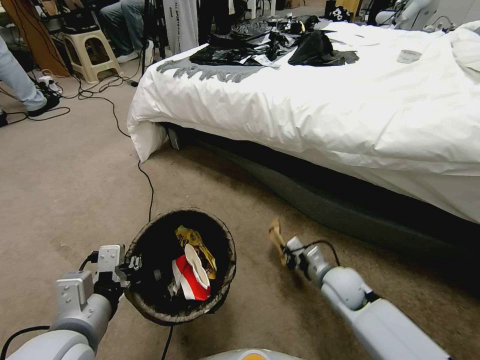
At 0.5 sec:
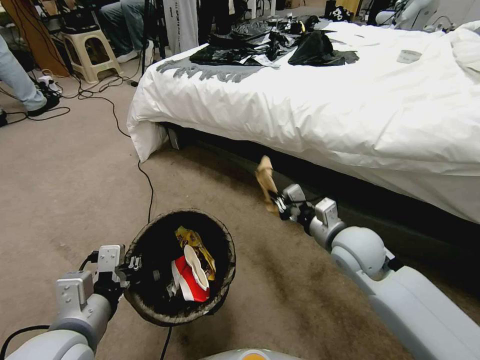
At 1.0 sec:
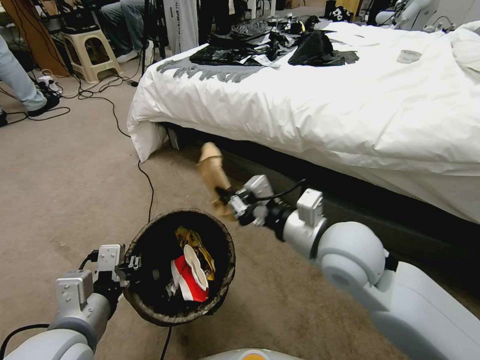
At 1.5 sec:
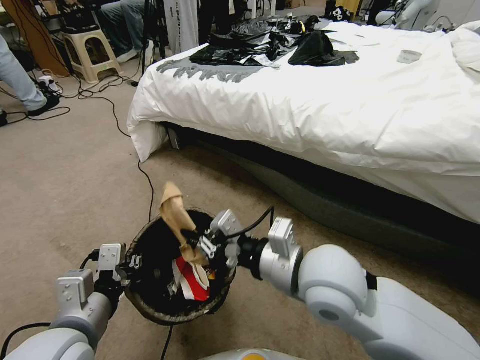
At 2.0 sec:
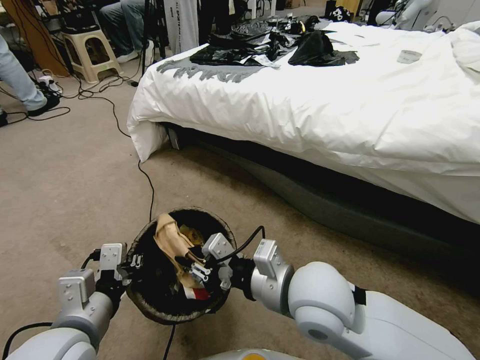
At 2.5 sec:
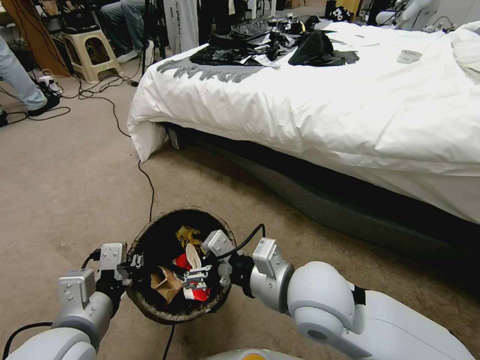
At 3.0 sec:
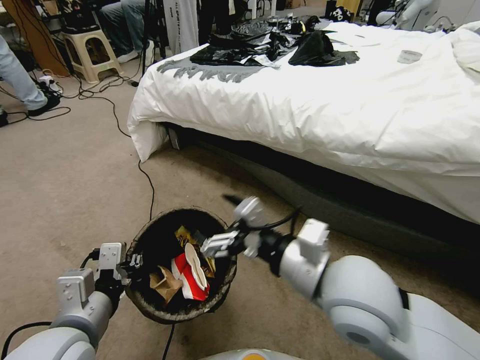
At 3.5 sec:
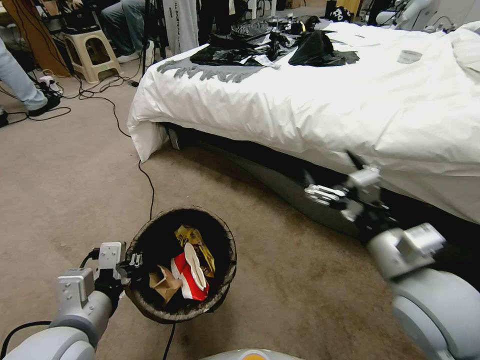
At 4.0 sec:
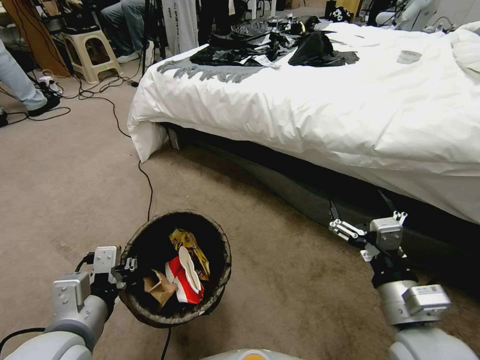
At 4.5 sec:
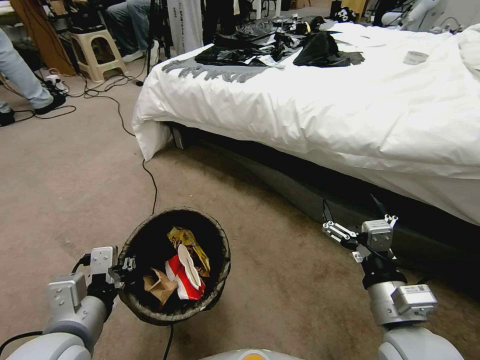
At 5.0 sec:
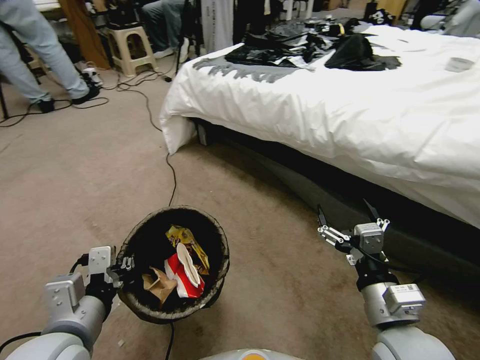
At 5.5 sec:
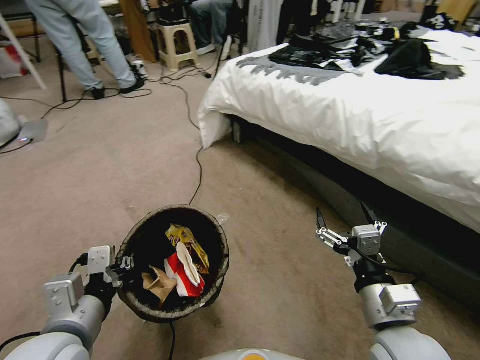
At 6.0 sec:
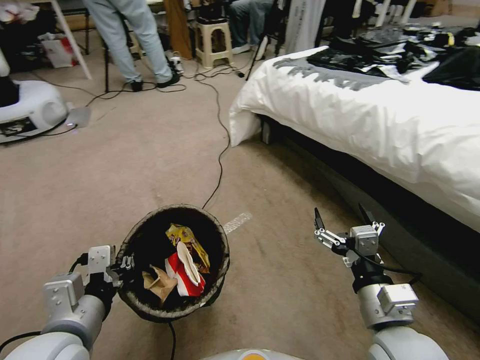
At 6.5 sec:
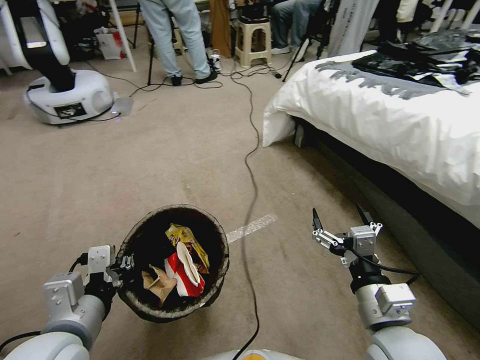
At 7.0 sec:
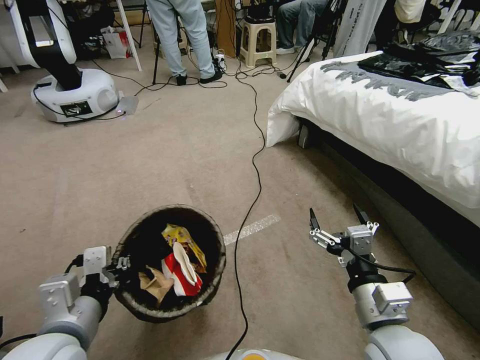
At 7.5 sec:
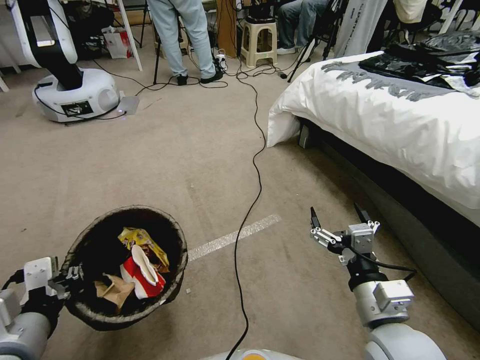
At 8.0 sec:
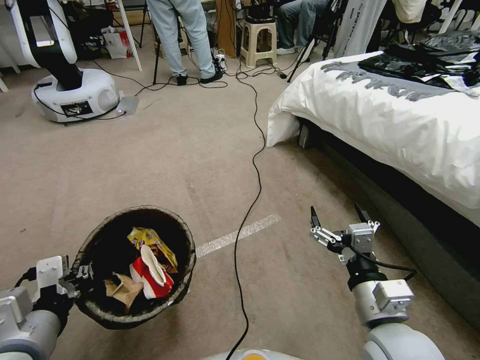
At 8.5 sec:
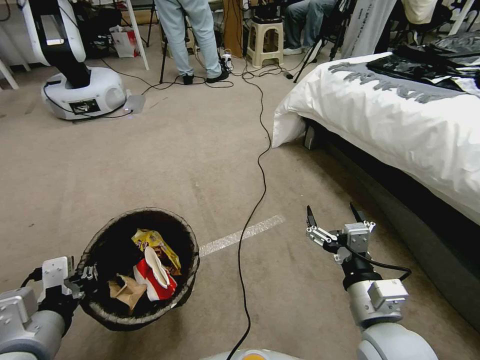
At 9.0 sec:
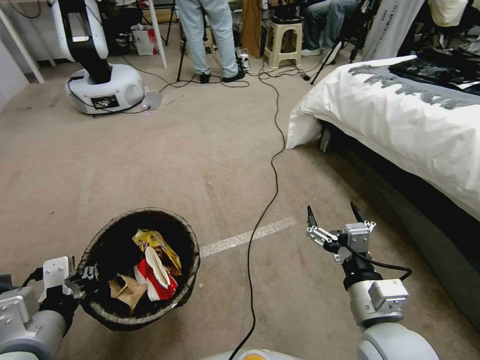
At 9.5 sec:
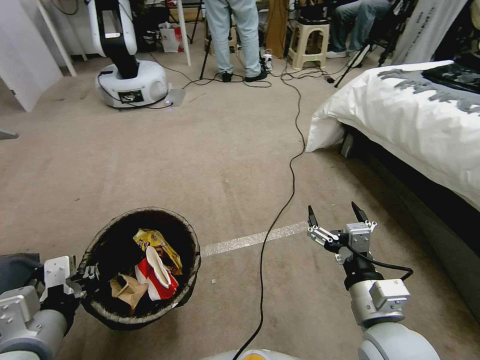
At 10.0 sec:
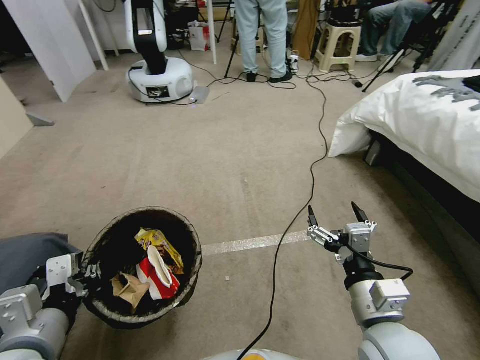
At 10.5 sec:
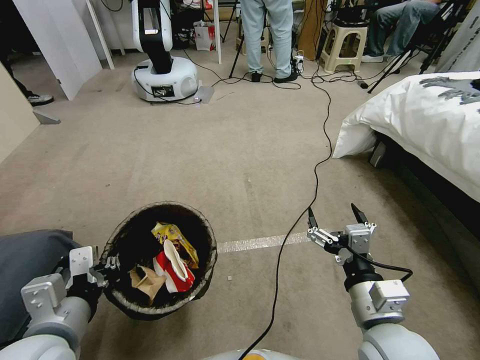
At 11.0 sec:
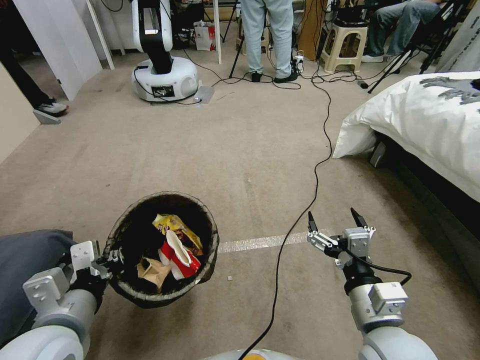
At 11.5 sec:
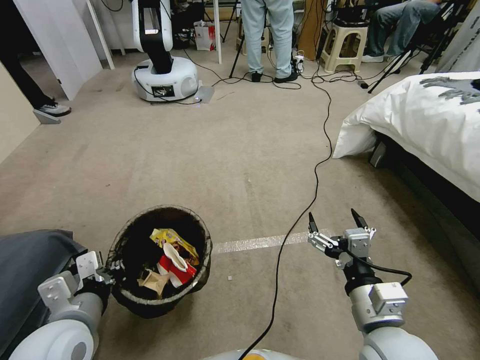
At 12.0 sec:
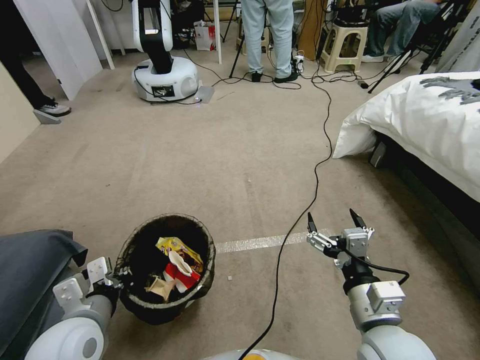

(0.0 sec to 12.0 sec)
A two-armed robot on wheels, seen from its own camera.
Task of the whole recording: Pick up the trash bin, then pick up the garbage from the floor and place it into the trash bin.
0.0 sec - 2.0 sec: The right gripper goes some 25 cm upward and to the left.
2.0 sec - 4.0 sec: The right gripper travels to the right and backward by roughly 15 cm, and opens its fingers.
6.0 sec - 8.0 sec: The left gripper ends up about 5 cm from where it was.
10.0 sec - 12.0 sec: The left gripper goes about 10 cm downward and forward.

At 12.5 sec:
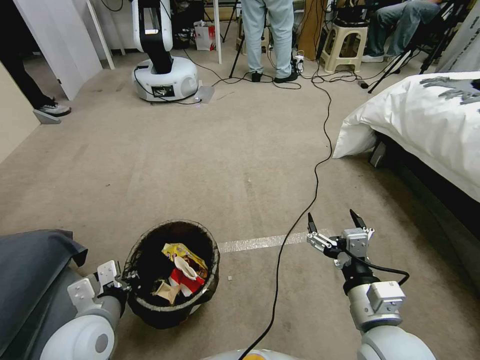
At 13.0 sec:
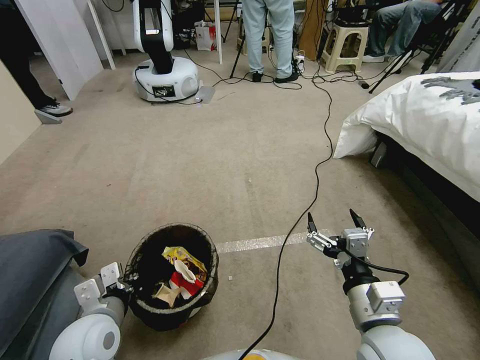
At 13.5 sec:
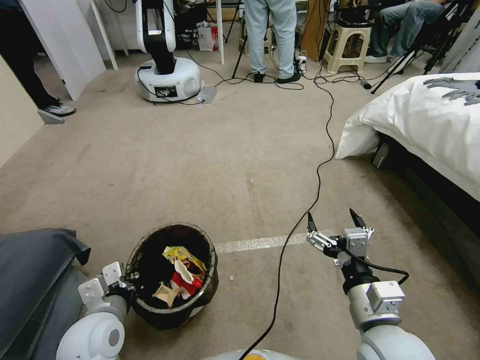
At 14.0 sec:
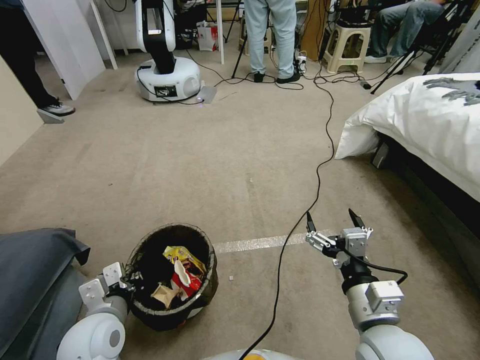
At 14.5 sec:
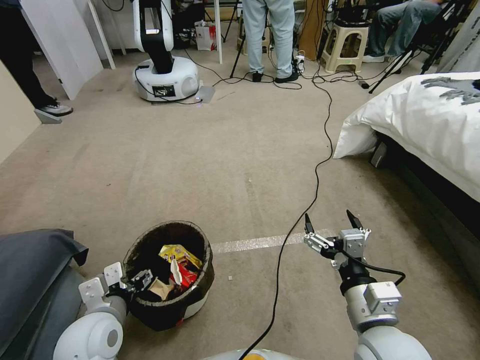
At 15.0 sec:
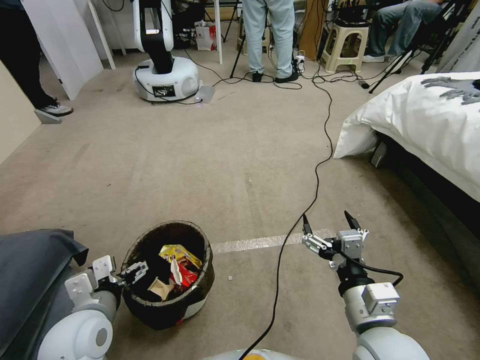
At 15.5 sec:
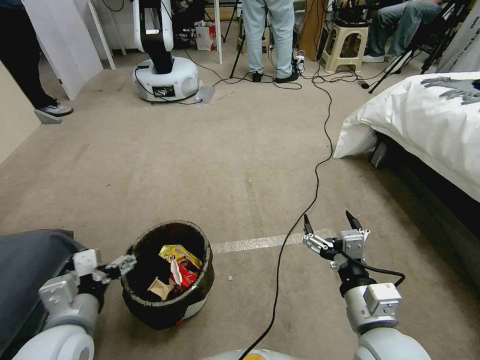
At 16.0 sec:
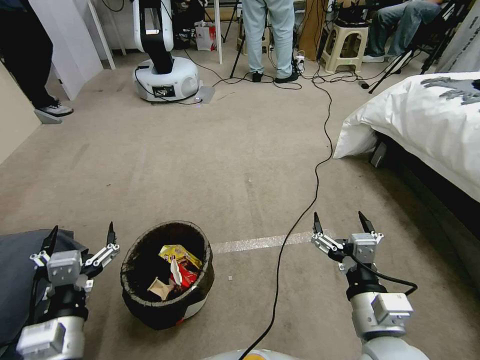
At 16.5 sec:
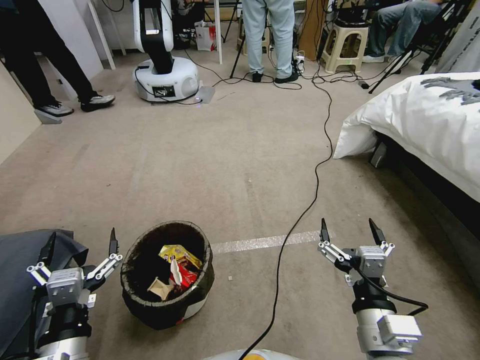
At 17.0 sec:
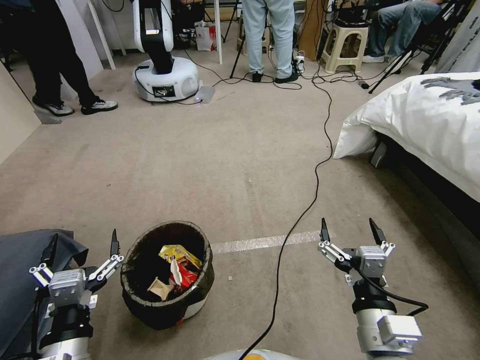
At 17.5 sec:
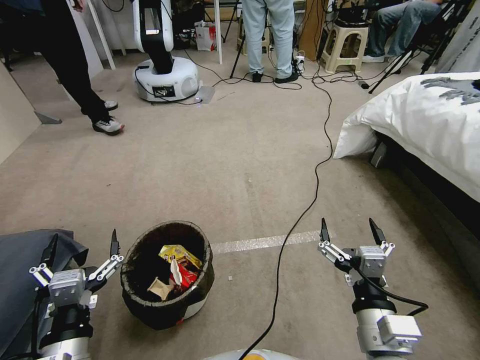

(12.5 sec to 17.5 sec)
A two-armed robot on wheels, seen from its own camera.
Task of the whole recording: Pick up the trash bin, then pick up the garbage from the floor and place it into the trash bin.
12.5 sec - 15.0 sec: The left gripper opens.
15.0 sec - 17.5 sec: The left gripper shifts some 10 cm backward.
